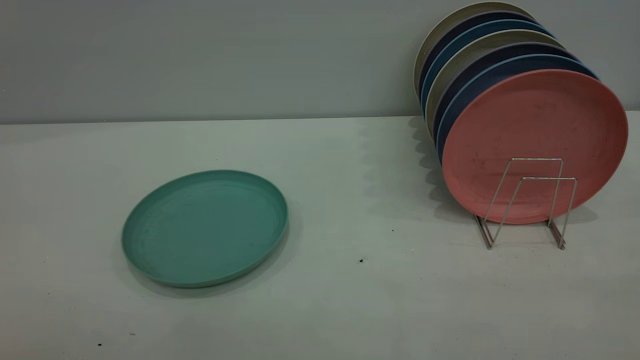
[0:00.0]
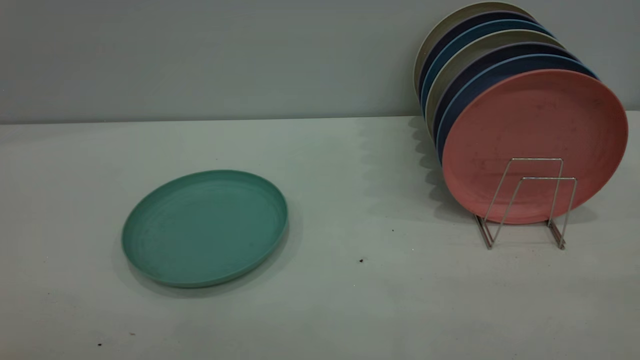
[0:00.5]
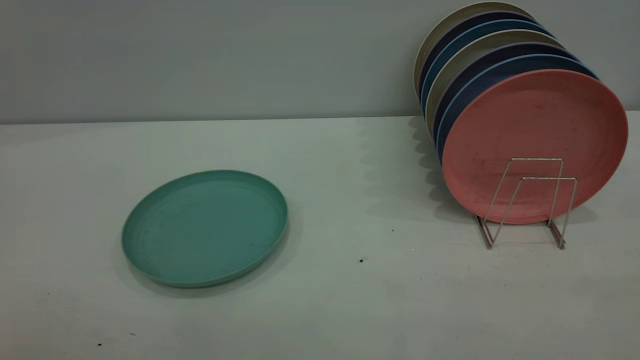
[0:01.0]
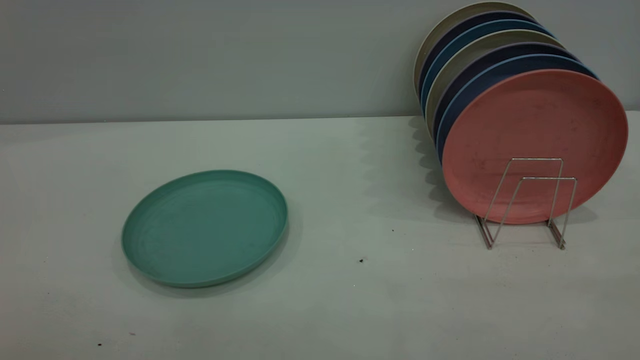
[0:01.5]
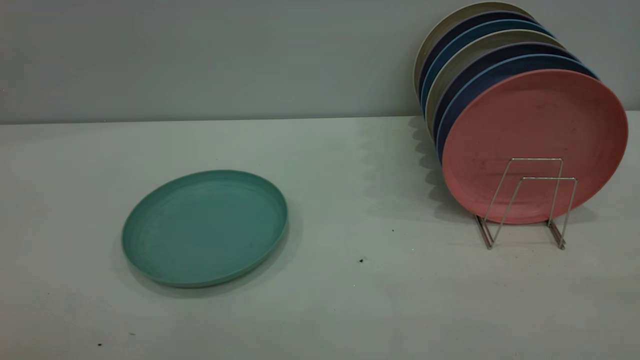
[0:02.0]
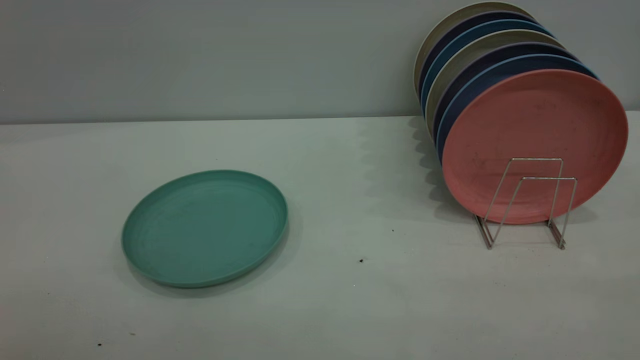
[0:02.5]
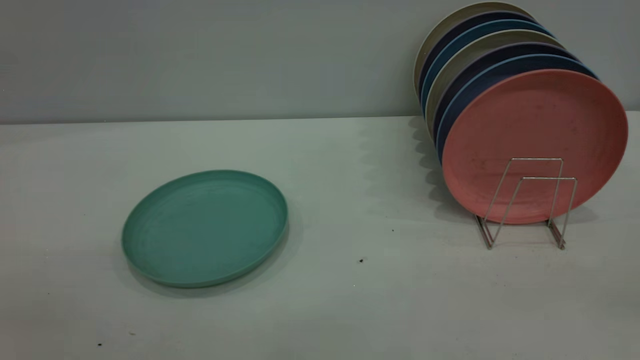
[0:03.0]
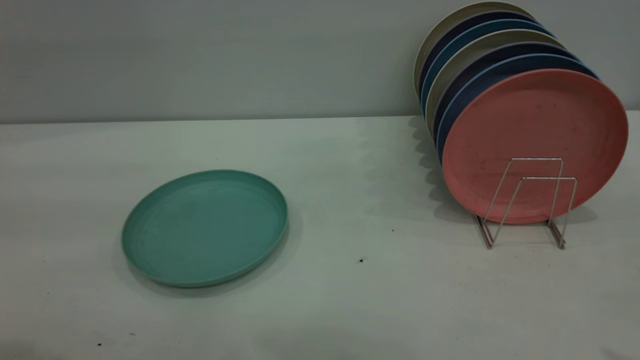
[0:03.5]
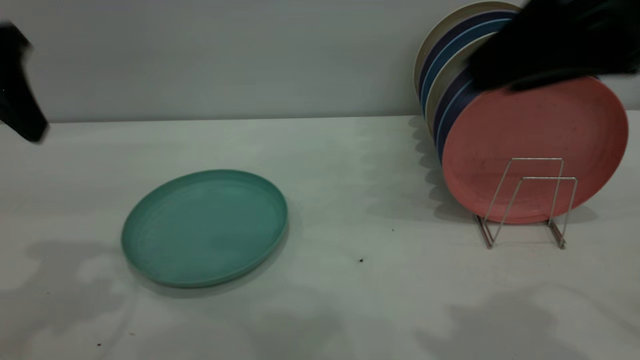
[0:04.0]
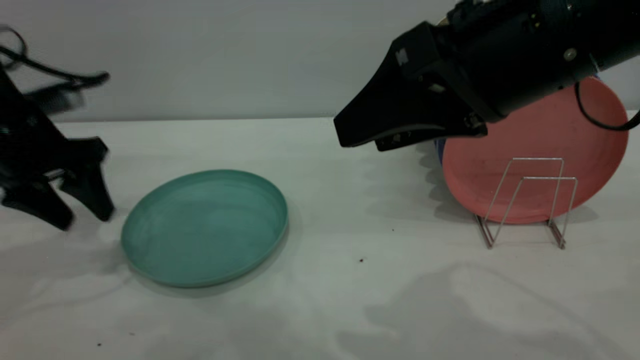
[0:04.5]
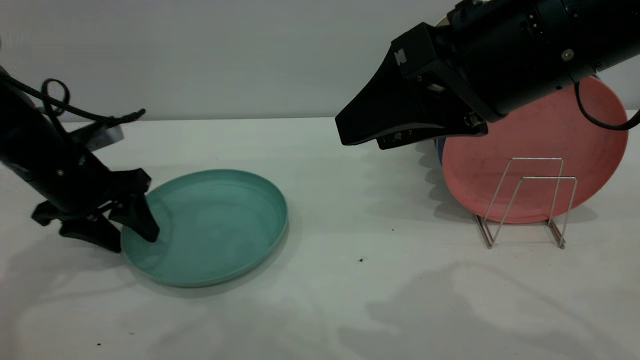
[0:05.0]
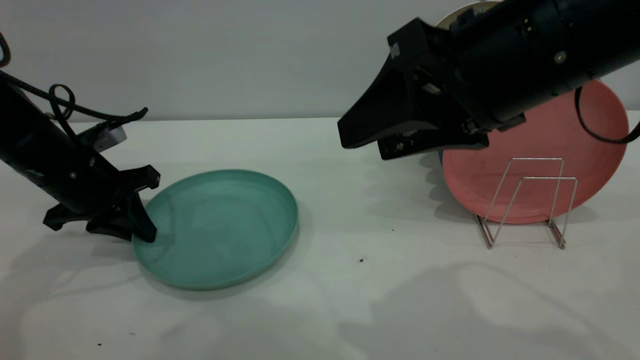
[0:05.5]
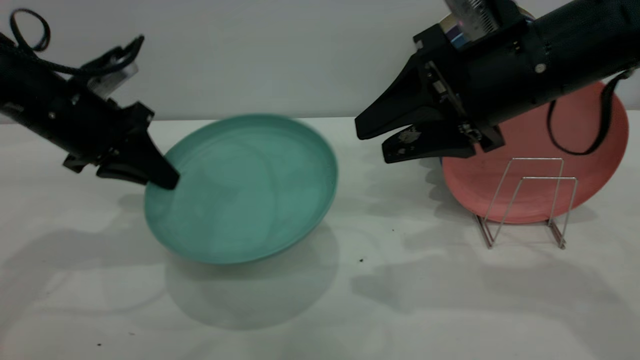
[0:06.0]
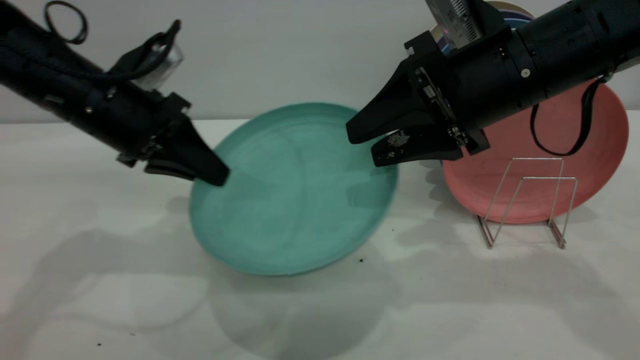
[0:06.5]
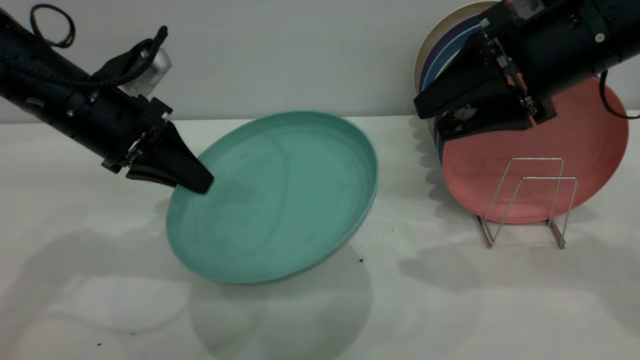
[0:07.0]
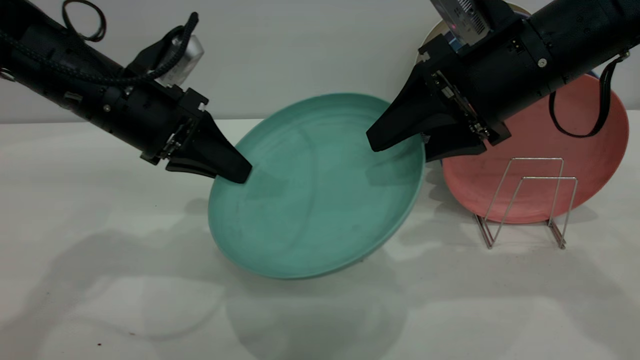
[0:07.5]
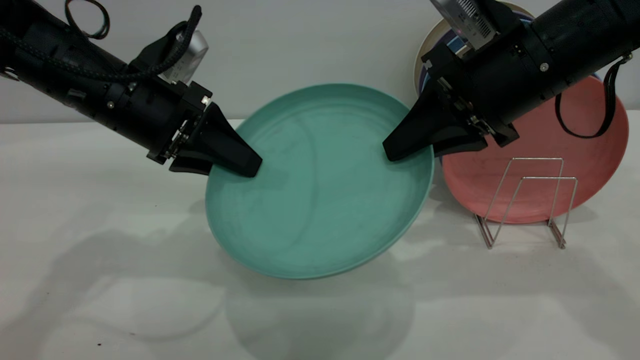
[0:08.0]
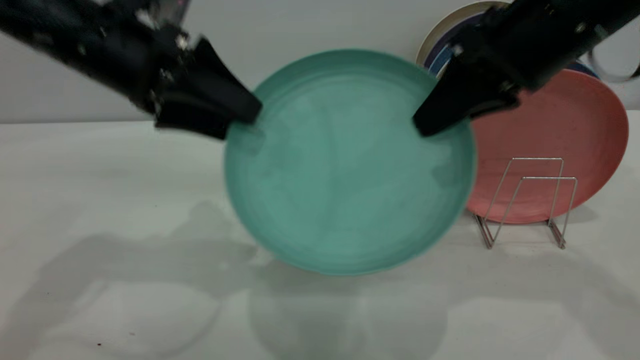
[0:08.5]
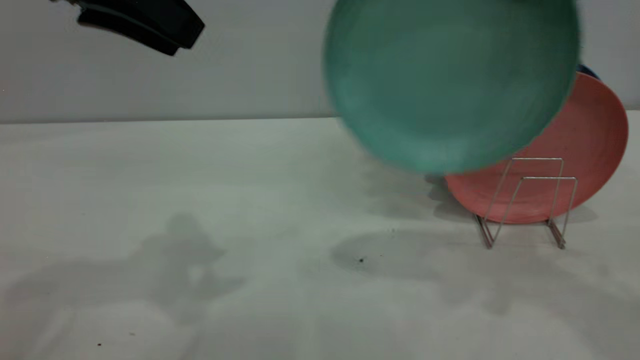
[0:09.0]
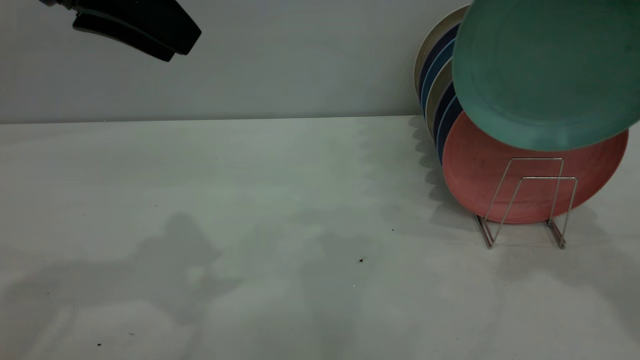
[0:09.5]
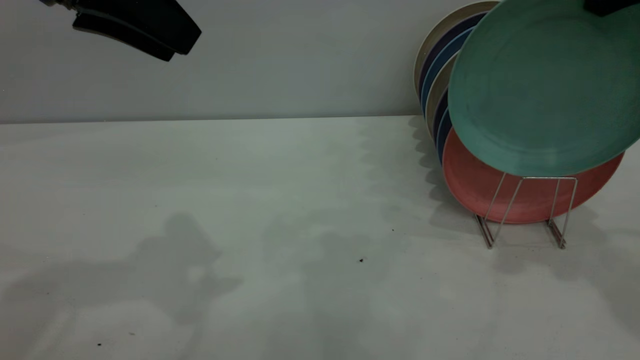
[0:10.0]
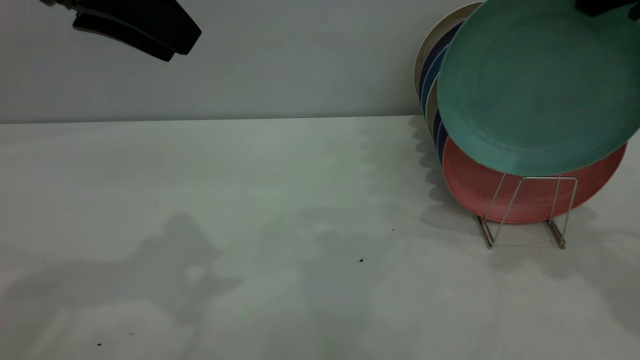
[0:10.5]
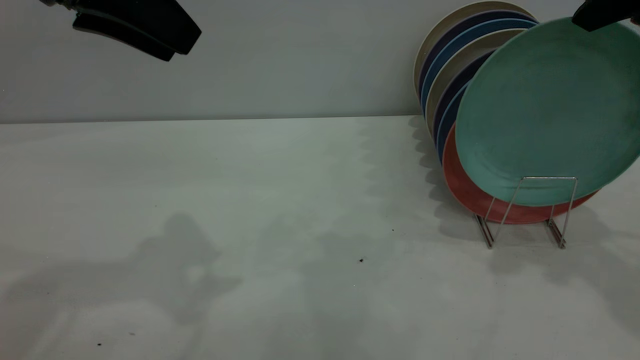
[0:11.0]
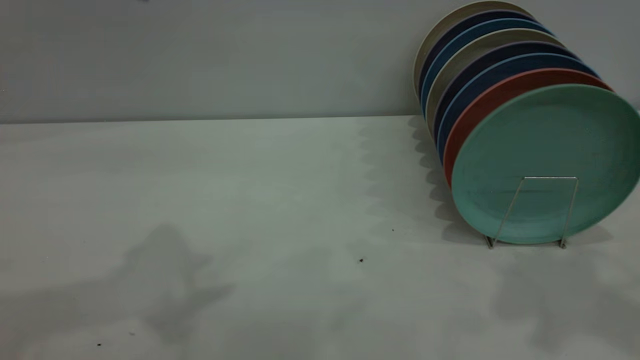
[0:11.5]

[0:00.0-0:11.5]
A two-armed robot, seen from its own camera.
Task of the whole recording: the left gripper grasp the green plate, the left gripper pass the green plate to the right gripper, and the right gripper place the green plate on the plate rack.
Step, 0:00.0 to 0:05.5: Pick up the plate with the left gripper.
Step, 0:06.0 to 0:08.5: Pass the plate from the left gripper to the right gripper.
Step, 0:09.0 to 0:11.0: Place the plate on the shelf.
0:00.0 to 0:02.0: Both grippers stay put.
0:02.0 to 0:04.0: The left gripper travels forward by some 30 cm. Meanwhile the right gripper heads forward and to the left, covering some 25 cm.
0:04.0 to 0:06.0: The right gripper travels forward and downward by some 15 cm; the left gripper goes about 15 cm downward and forward, and closes its fingers.
0:06.0 to 0:07.5: The left gripper travels to the right by some 5 cm.
0:07.5 to 0:09.5: The left gripper goes roughly 15 cm upward, and opens its fingers; the right gripper shifts approximately 20 cm upward and to the right, and closes.
0:09.5 to 0:11.5: The right gripper heads backward and upward, covering about 10 cm, and opens its fingers, while the left gripper moves upward, roughly 5 cm.

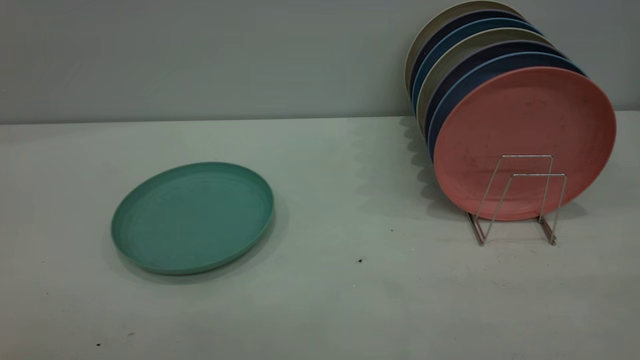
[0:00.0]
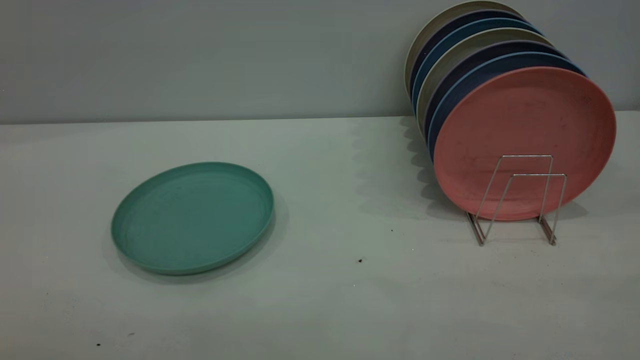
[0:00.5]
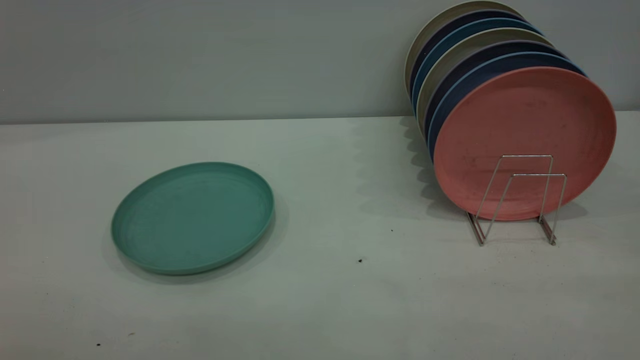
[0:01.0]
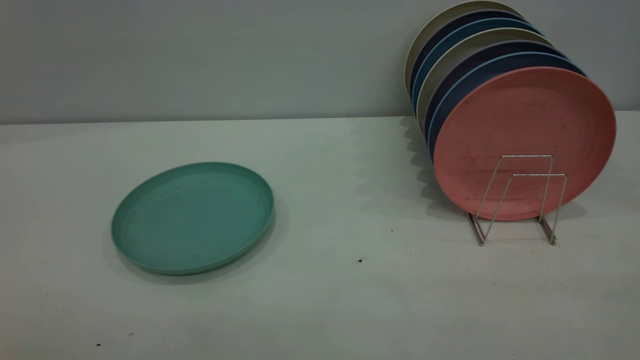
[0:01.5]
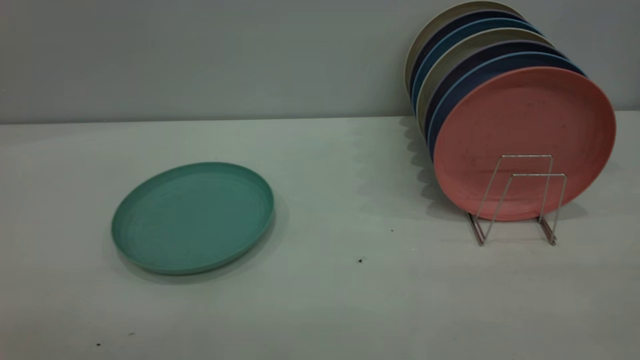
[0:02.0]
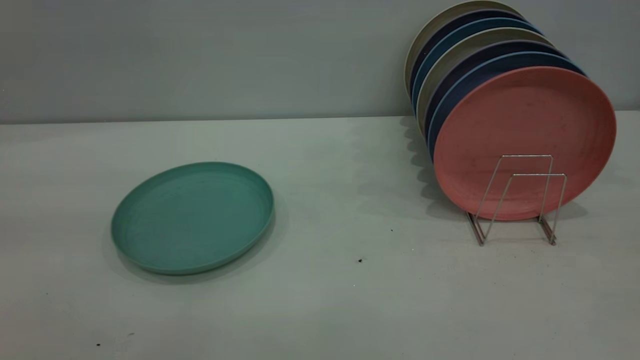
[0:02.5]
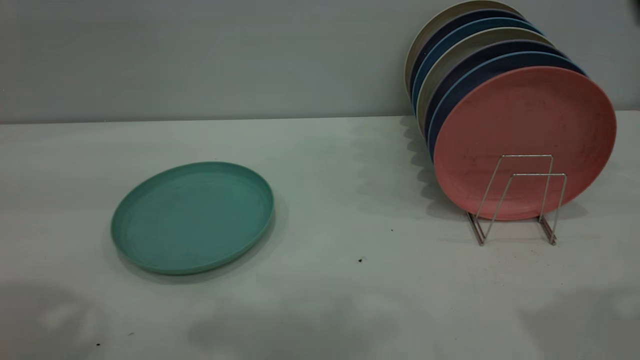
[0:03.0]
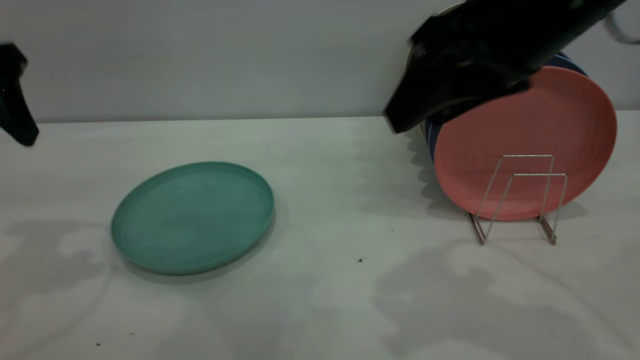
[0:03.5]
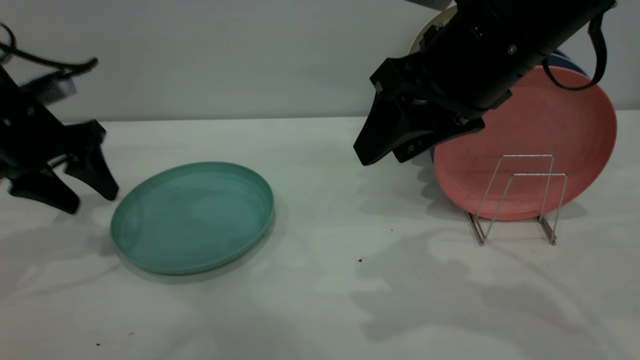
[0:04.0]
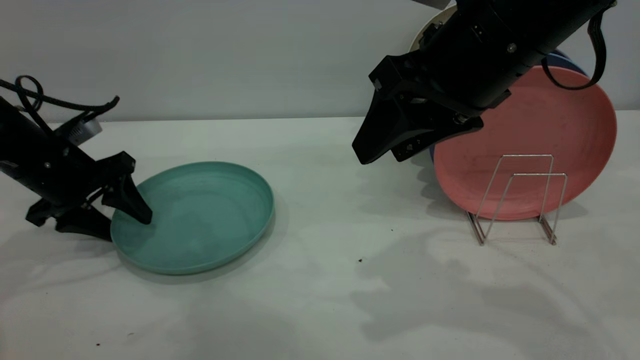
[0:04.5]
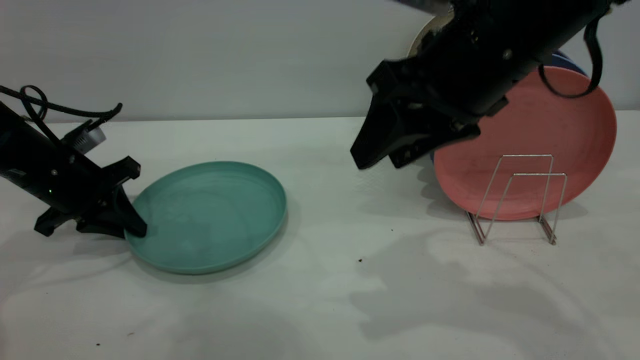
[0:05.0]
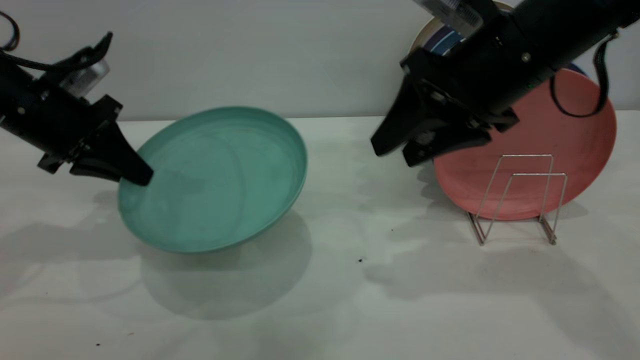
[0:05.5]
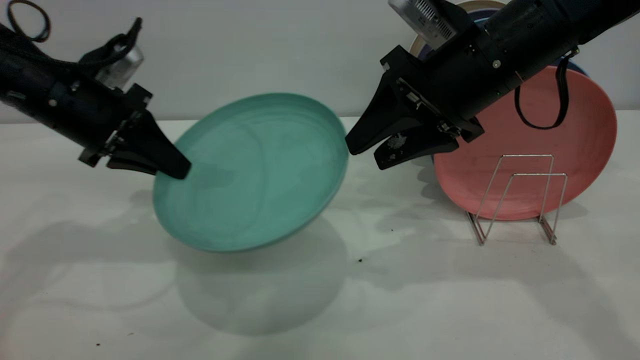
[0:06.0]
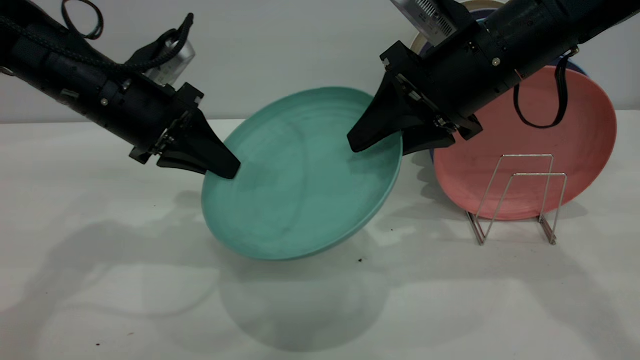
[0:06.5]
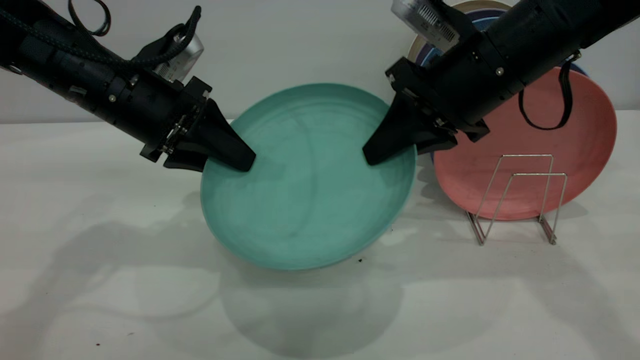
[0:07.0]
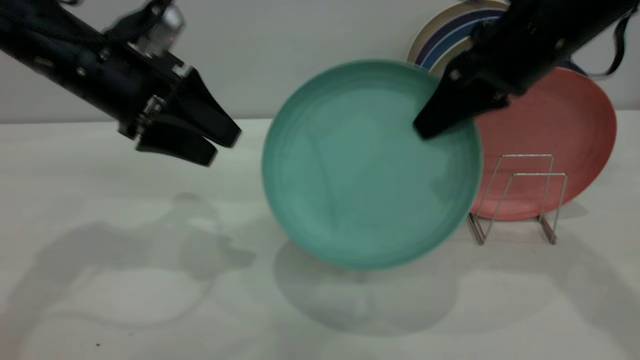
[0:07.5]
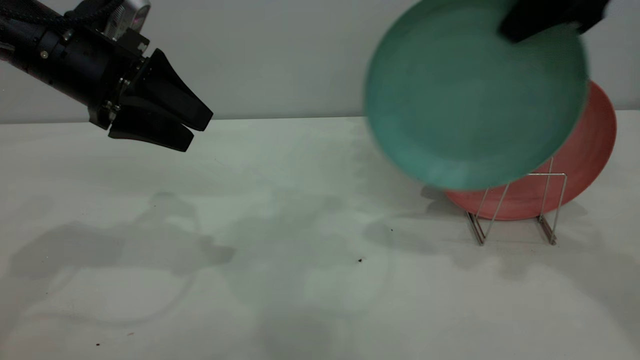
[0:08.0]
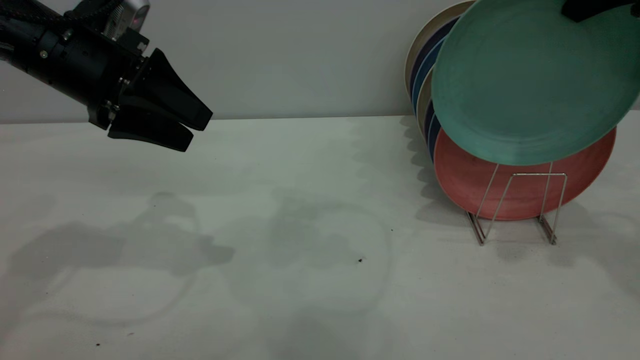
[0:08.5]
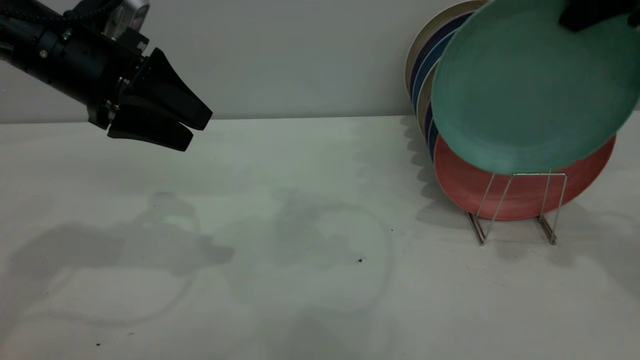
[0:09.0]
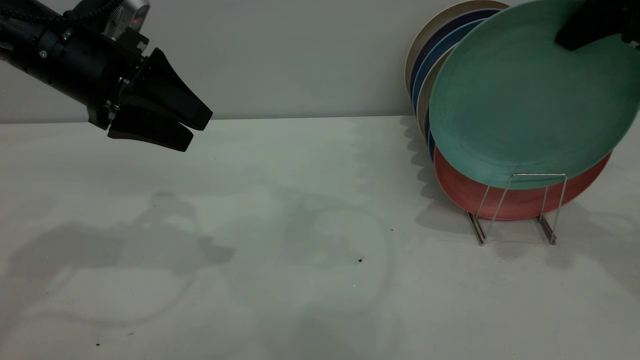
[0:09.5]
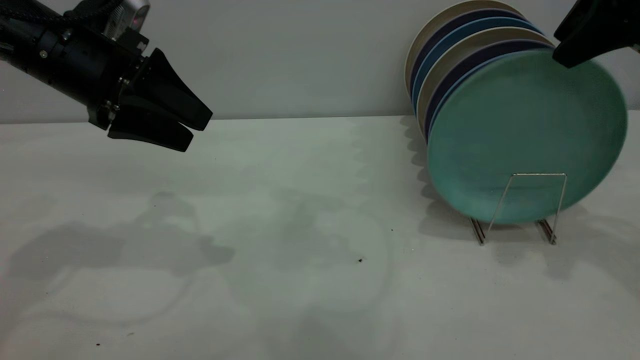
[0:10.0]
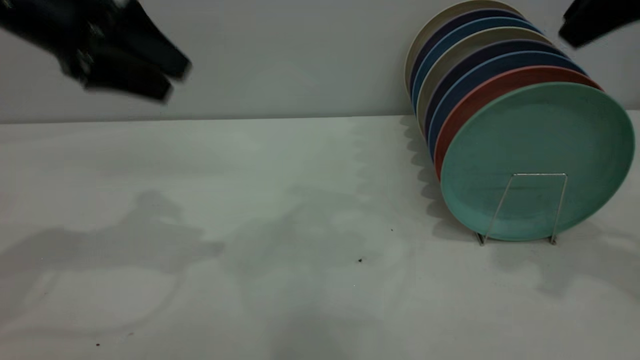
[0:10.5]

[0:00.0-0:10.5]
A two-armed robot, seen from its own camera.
Task of the whole recording: the left gripper grasp the green plate, the left gripper pass the green plate to the right gripper, and the right gripper place the green plate on the plate rack.
Step, 0:00.0 to 0:05.5: Pick up the plate with the left gripper.
Step, 0:06.0 to 0:07.5: Pass the plate from the left gripper to the right gripper.
Step, 0:08.0 to 0:10.0: Place the plate on the shelf.
0:02.0 to 0:04.0: The right gripper heads forward and to the left, covering about 35 cm, while the left gripper moves forward and downward, some 50 cm.
0:04.0 to 0:06.5: The left gripper heads to the right, covering approximately 10 cm, and closes. The right gripper is displaced forward by some 5 cm, and closes up.
0:06.5 to 0:08.5: The left gripper shifts by roughly 5 cm, and opens up. Meanwhile the right gripper is displaced to the right and upward by roughly 20 cm, and closes.
0:08.5 to 0:10.5: The left gripper moves upward, some 5 cm. The right gripper opens.
